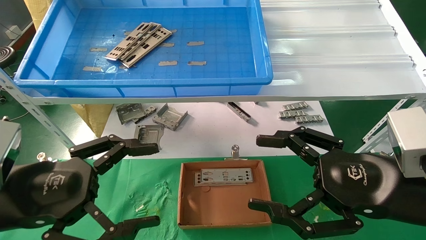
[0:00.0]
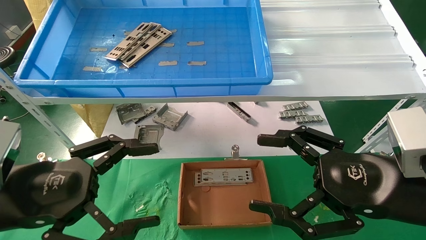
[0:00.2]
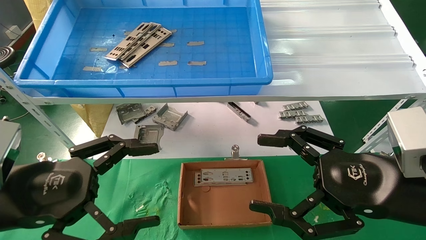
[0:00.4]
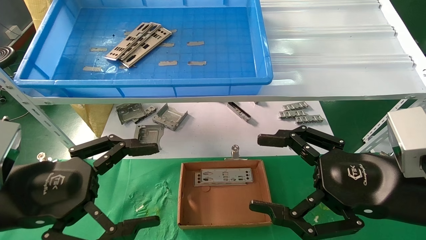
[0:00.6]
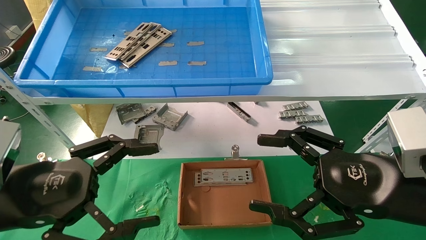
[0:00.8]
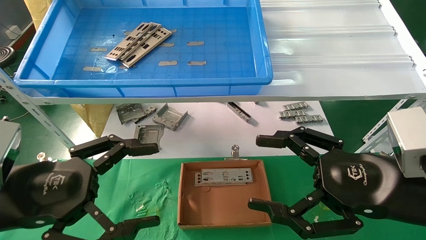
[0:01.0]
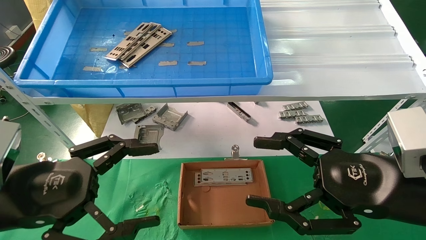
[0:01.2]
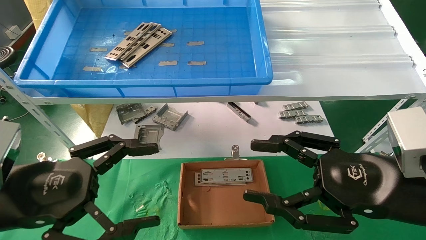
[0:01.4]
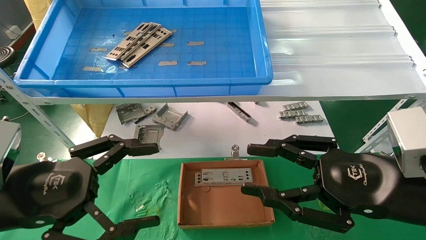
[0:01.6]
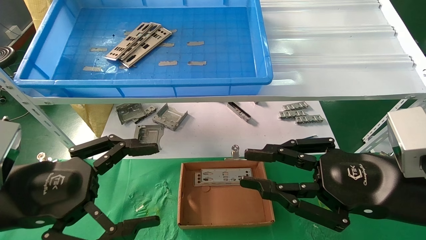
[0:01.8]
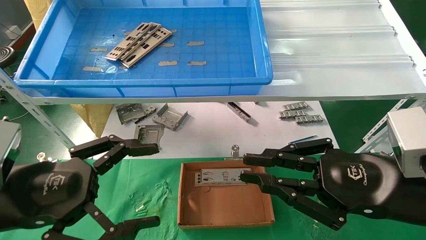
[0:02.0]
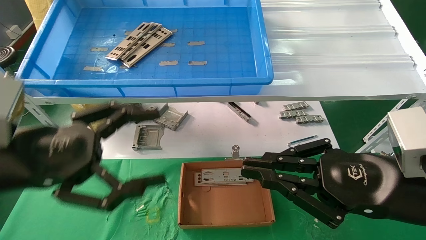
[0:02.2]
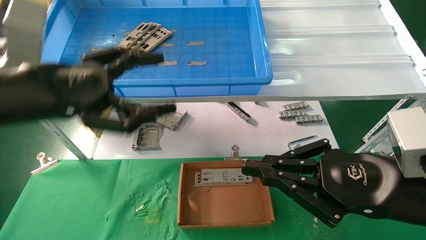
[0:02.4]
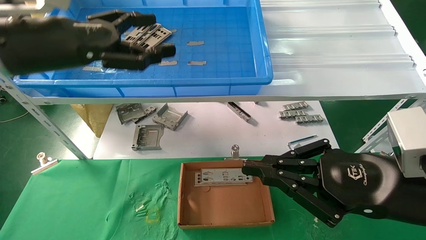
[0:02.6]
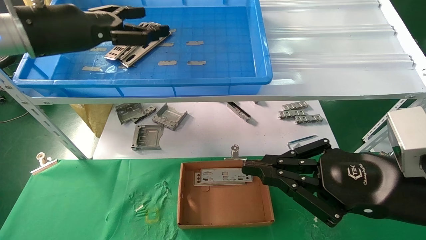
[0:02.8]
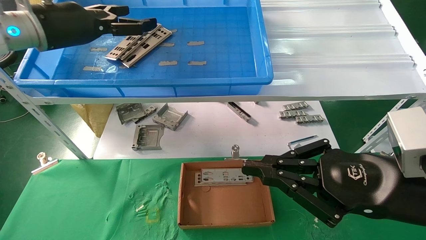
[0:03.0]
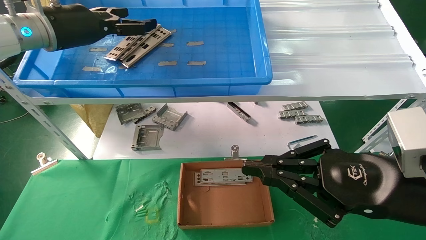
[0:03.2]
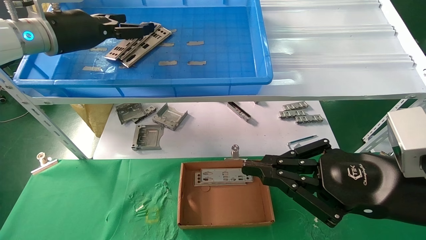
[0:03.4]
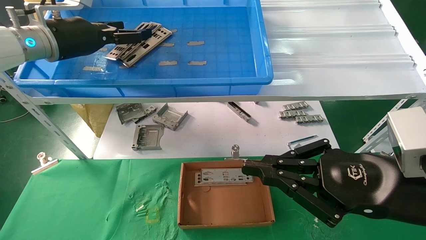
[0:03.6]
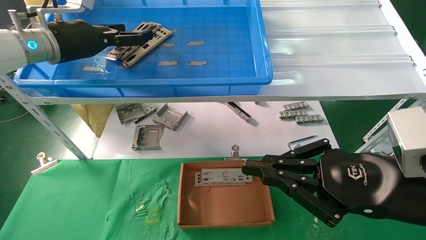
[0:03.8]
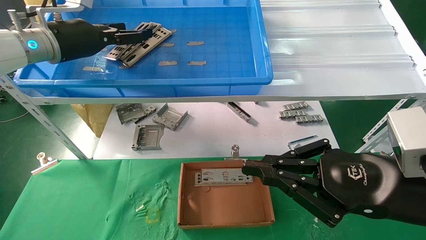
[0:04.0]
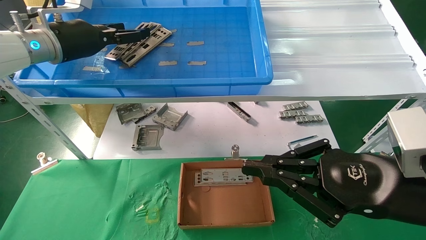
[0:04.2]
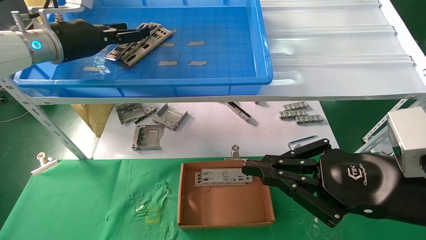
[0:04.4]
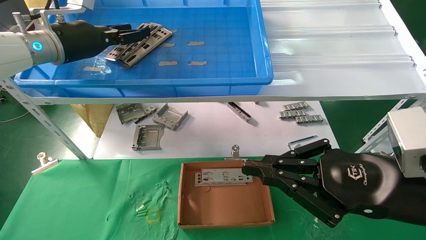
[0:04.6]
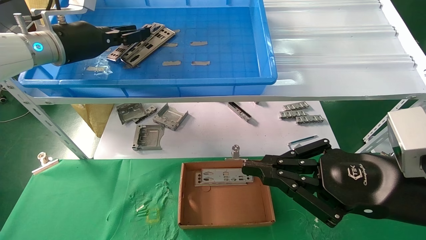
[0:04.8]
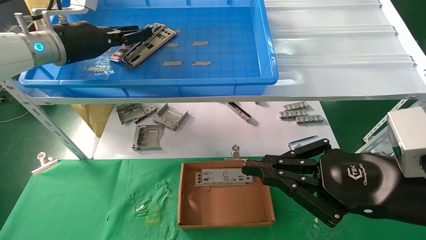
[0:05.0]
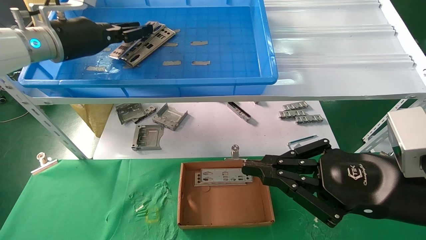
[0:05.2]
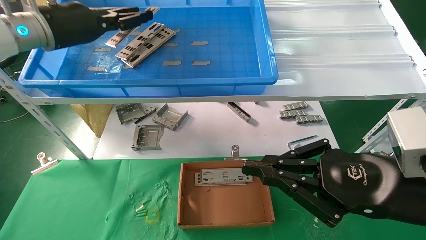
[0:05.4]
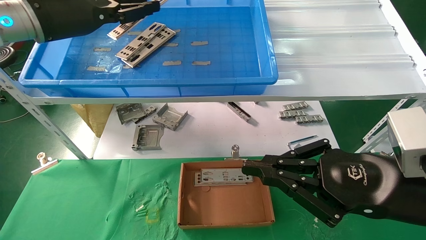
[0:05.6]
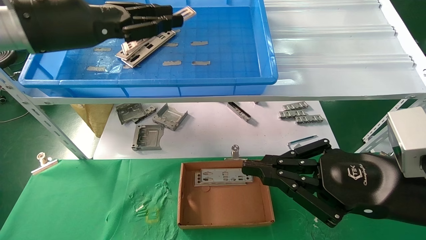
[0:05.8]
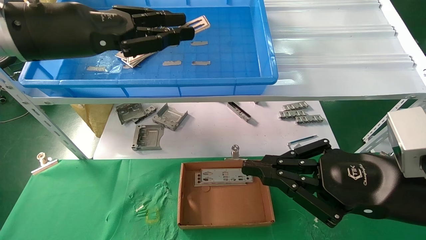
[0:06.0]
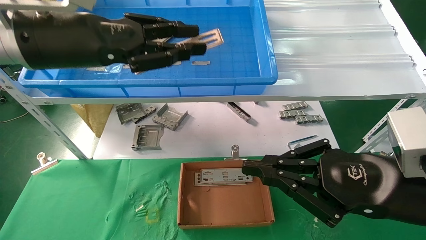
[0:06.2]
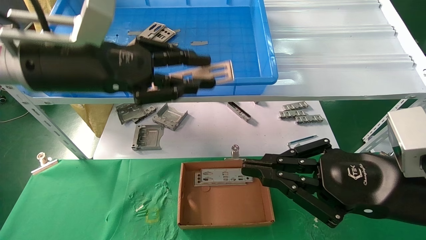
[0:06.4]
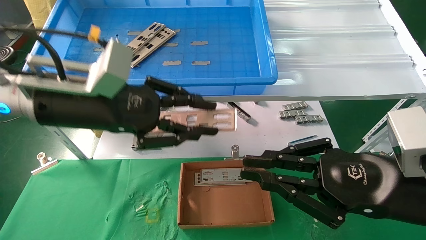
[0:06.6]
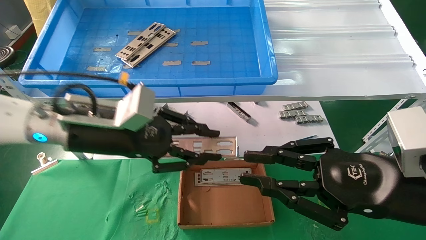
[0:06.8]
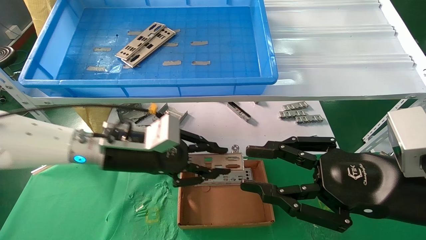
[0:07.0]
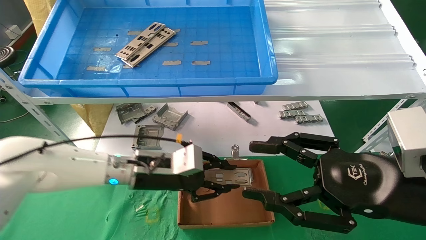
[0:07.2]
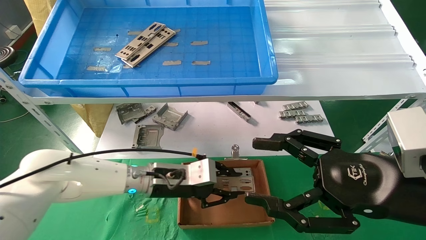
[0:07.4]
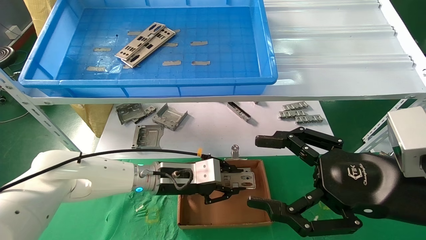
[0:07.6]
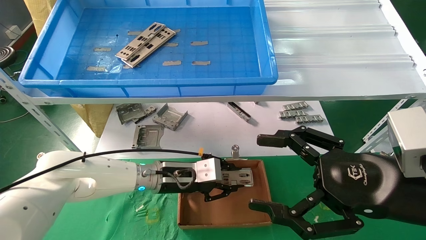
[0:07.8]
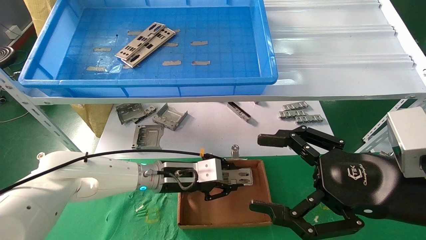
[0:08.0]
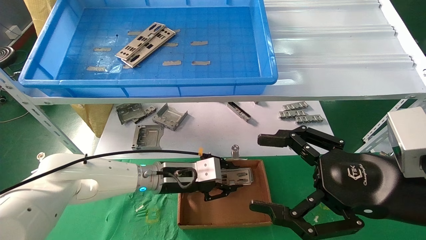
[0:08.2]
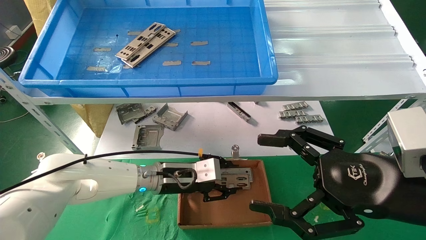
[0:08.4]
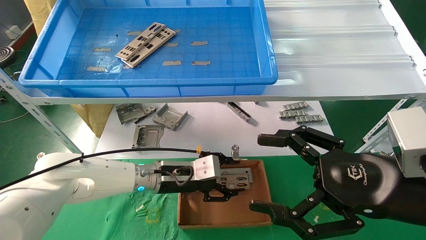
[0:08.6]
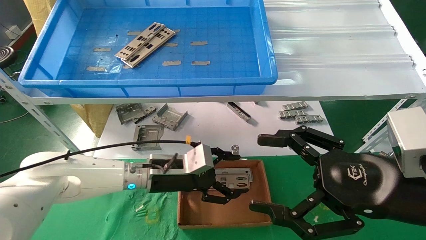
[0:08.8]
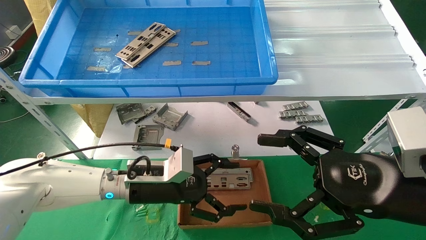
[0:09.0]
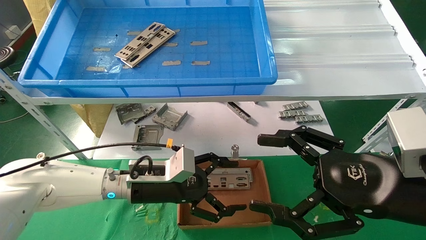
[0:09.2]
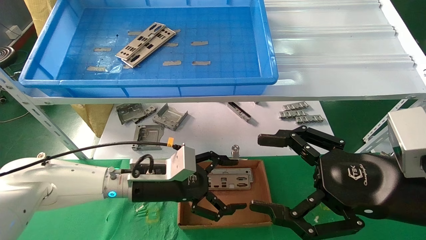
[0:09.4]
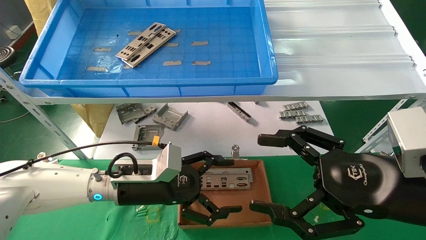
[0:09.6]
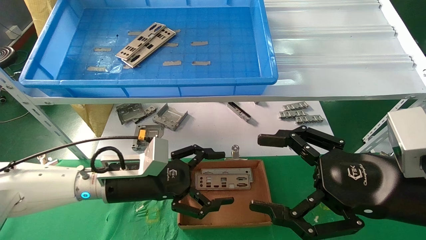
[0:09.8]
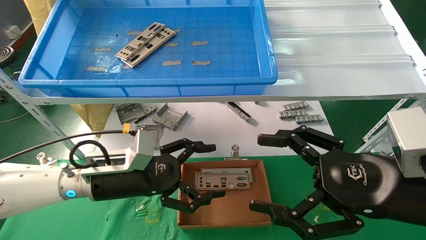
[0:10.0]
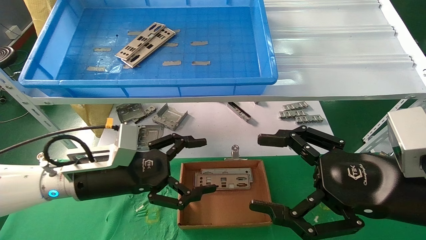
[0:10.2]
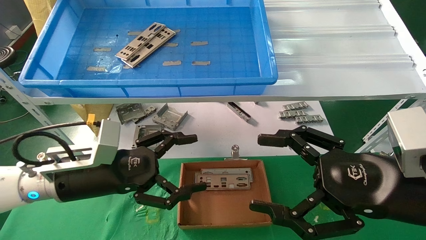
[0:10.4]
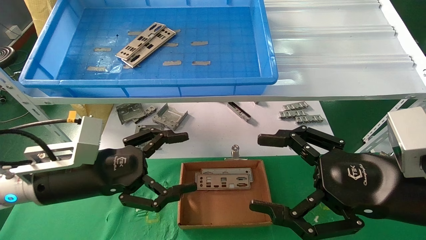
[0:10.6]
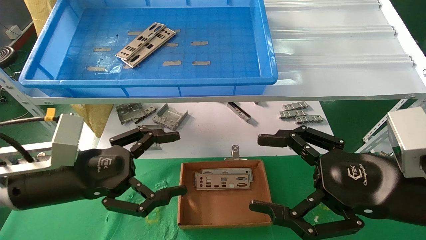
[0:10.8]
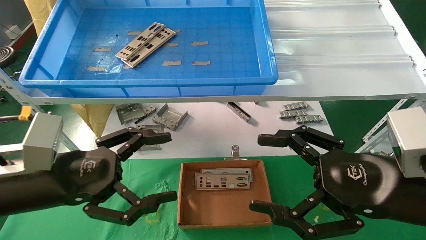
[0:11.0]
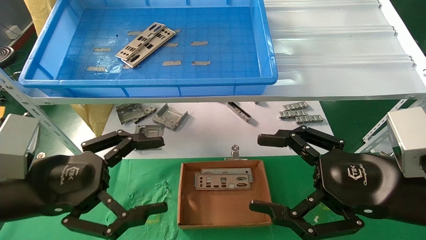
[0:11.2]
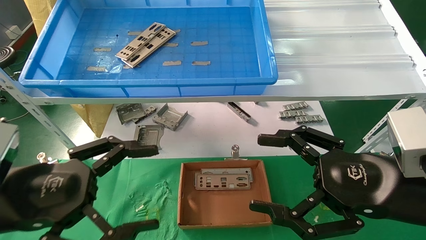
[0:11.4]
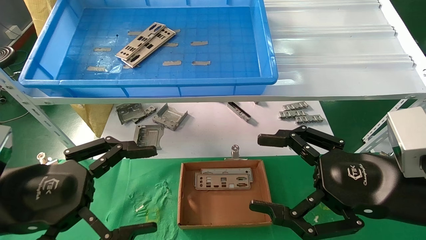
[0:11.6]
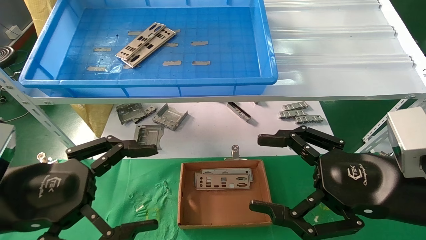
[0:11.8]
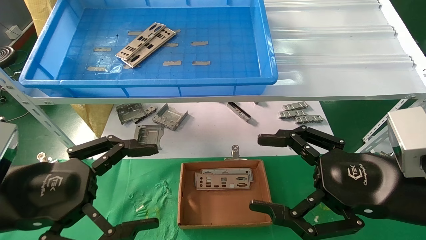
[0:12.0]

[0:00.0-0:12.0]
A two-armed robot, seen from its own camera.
Task of the whole recording: pick up the parts on the tray and put them in the cardboard box.
Step, 0:02.4 to 0:04.8: Pick up the IO bracket from the container box.
Step, 0:05.0 to 0:08.2: Place the IO bracket into the ingredient slot.
0:00.0 to 0:01.6: Both grippers stay about where they are.
0:01.6 to 0:03.0: The left gripper goes about 30 cm forward and upward, while the right gripper closes up.
0:03.0 to 0:04.4: The grippers stay close to where they were, moving slightly.
0:04.4 to 0:06.0: The left gripper heads backward, covering approximately 10 cm, and closes its fingers.
0:06.0 to 0:07.6: The right gripper opens its fingers; the left gripper moves downward and to the right, some 30 cm.
0:07.6 to 0:09.0: The left gripper opens its fingers.
0:09.0 to 0:10.4: The left gripper travels to the left, backward and upward by approximately 15 cm.
0:10.4 to 0:12.0: The left gripper moves backward, roughly 10 cm.

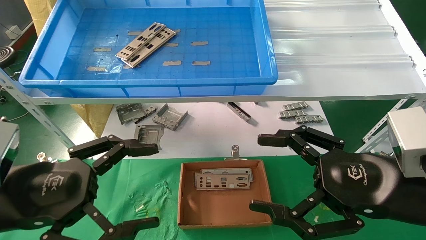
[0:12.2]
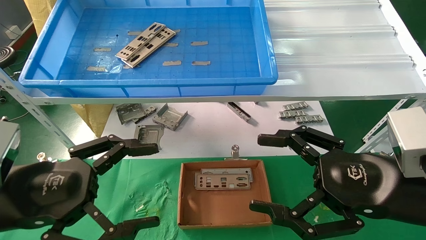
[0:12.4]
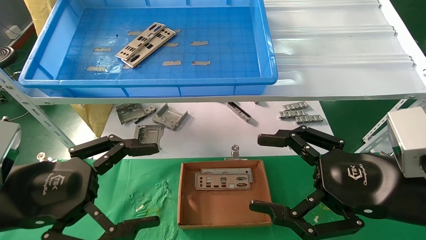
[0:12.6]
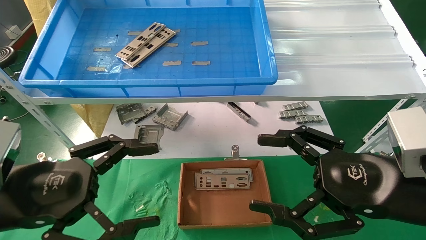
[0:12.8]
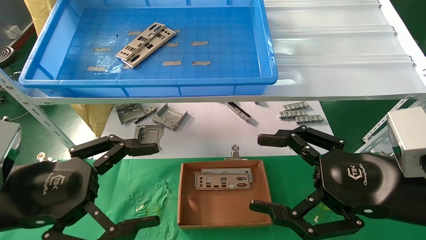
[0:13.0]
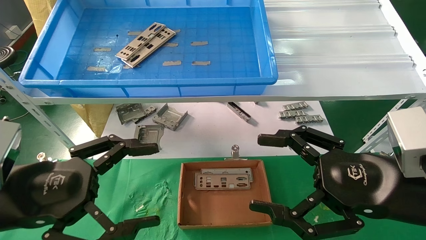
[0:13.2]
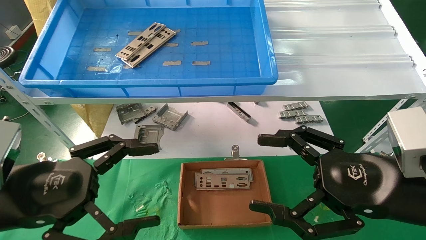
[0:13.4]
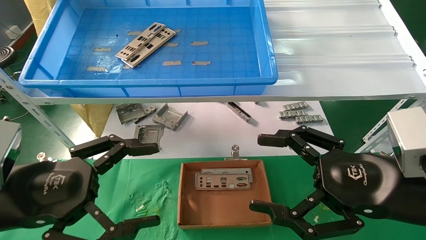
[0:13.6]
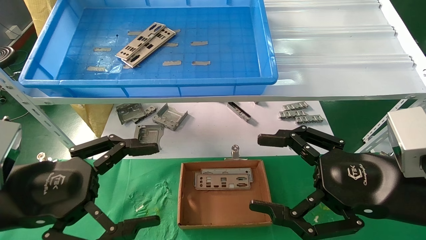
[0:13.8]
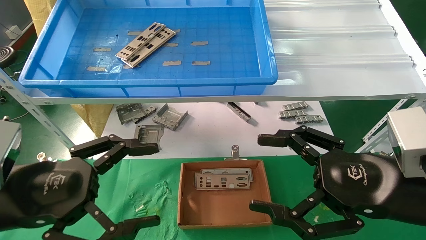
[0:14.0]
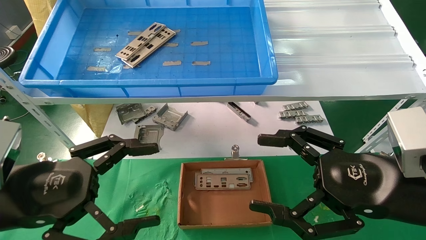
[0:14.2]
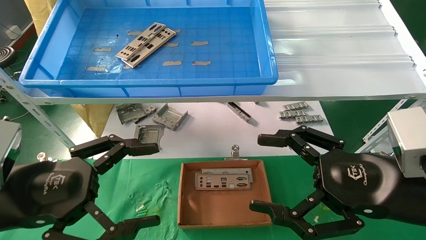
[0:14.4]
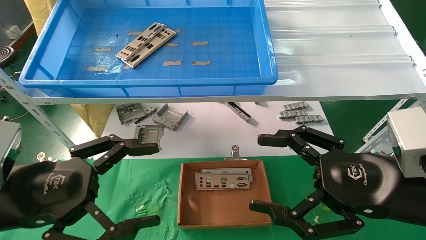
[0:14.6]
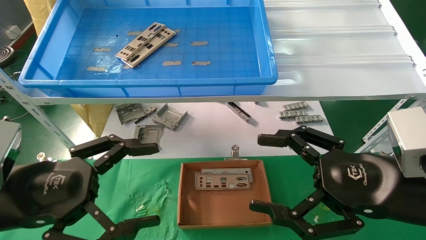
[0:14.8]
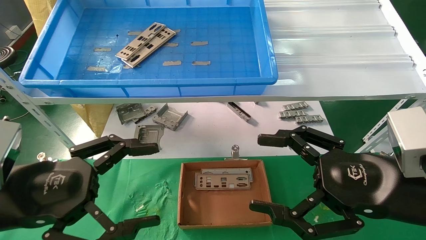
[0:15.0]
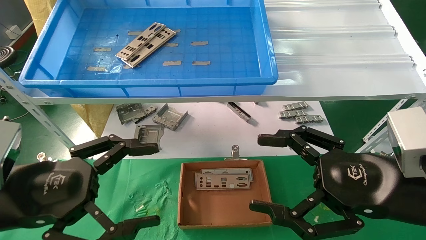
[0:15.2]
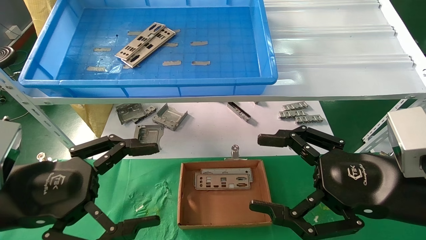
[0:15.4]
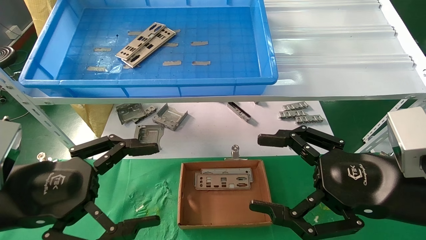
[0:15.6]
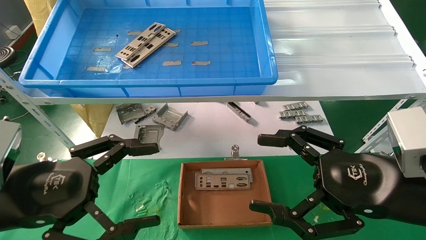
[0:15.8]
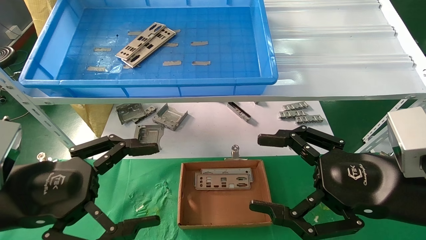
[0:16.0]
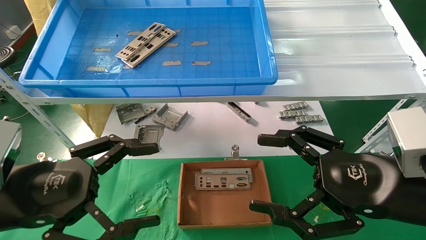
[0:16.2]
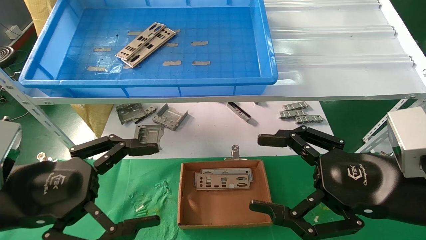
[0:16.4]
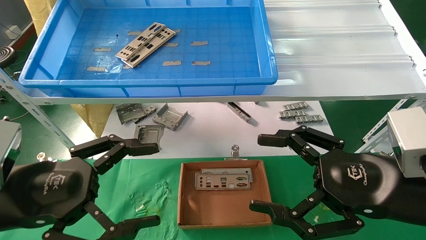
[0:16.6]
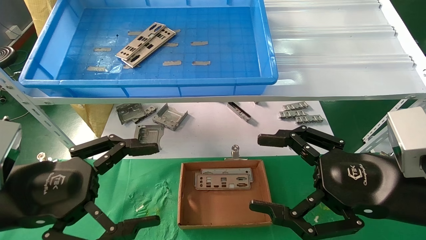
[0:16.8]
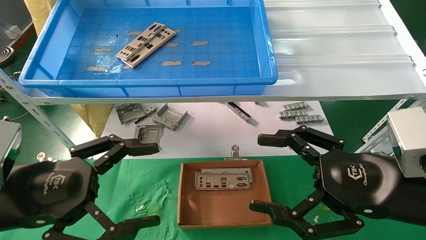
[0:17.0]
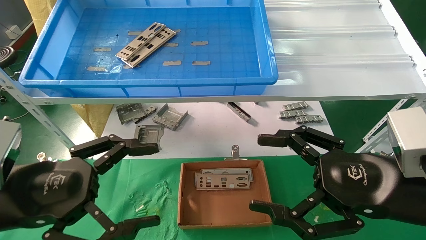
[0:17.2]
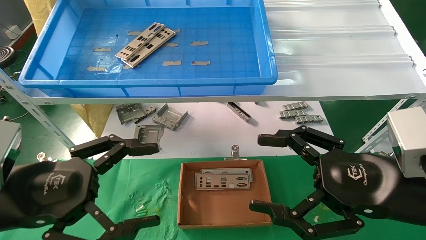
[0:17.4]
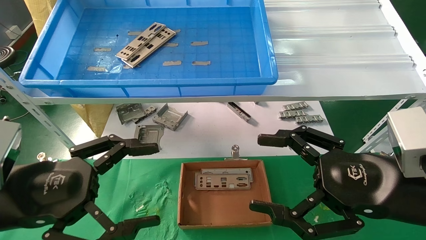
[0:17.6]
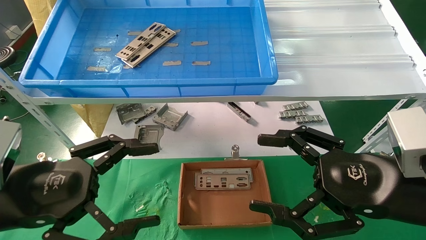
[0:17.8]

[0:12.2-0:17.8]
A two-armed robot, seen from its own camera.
Task of the whole recording: pick up the parts on the tray and put them in the cardboard box.
0:12.2 to 0:17.8: Both grippers stay about where they are.
